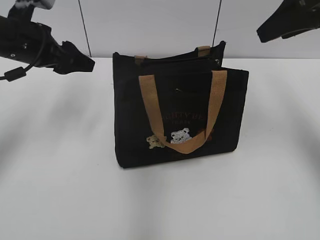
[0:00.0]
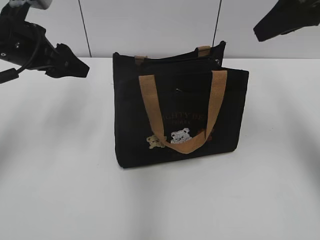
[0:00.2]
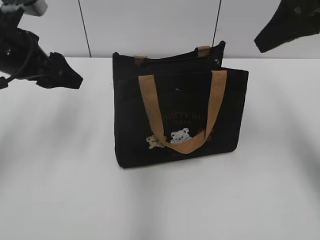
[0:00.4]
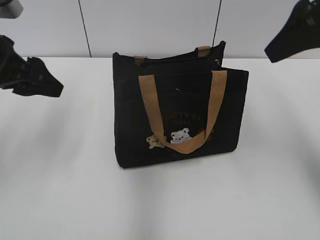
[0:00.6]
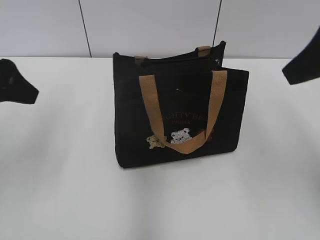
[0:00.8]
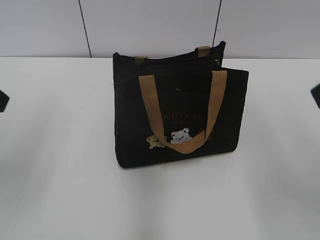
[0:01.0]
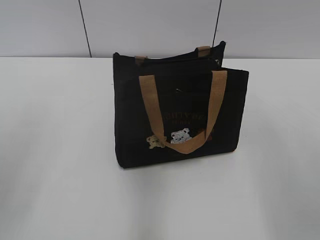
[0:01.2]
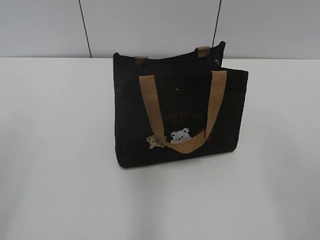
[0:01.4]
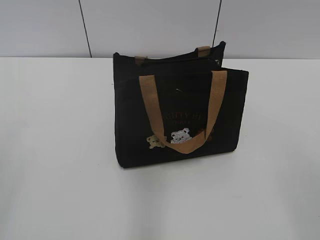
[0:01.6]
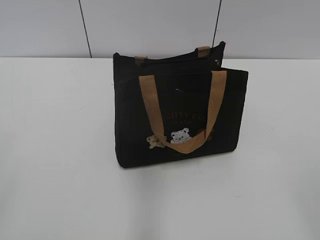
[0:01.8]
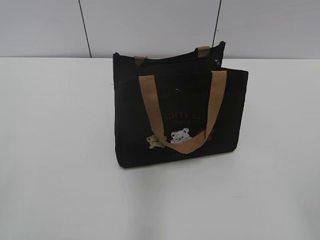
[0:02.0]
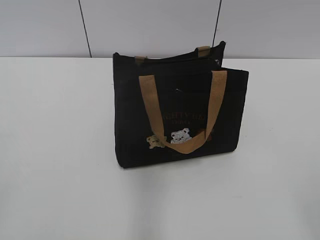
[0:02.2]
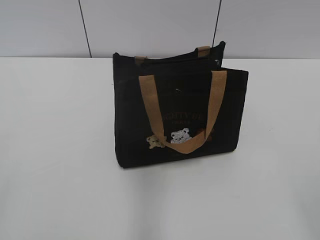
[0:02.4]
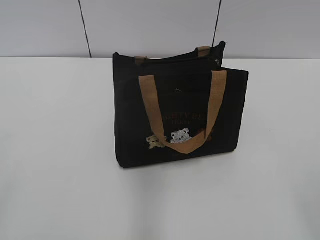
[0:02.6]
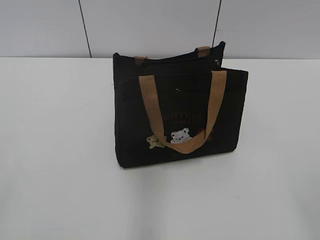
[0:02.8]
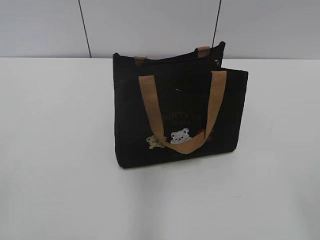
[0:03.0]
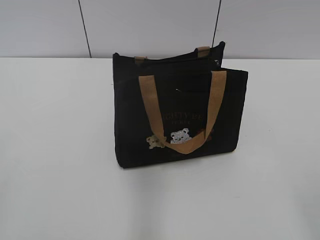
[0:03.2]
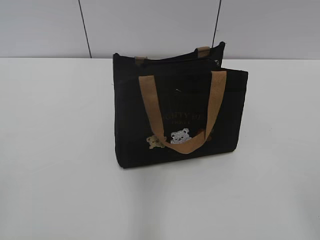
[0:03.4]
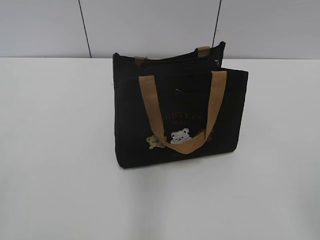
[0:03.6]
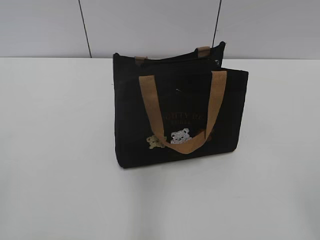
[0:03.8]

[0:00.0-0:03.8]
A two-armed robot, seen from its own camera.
0:00.0 to 0:01.2: The right gripper heads backward, covering roughly 20 cm. Meanwhile the left gripper moves backward and upward, approximately 20 cm.
0:01.2 to 0:02.6: The right gripper goes some 15 cm backward and downward.
